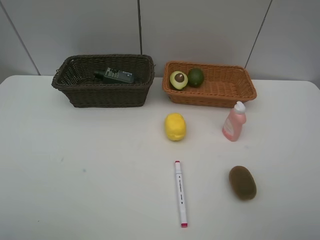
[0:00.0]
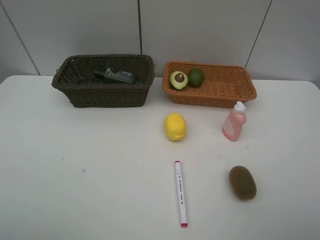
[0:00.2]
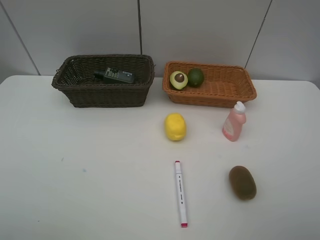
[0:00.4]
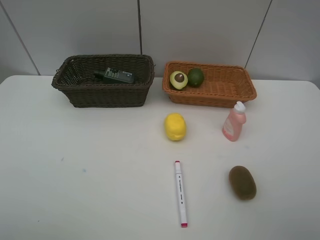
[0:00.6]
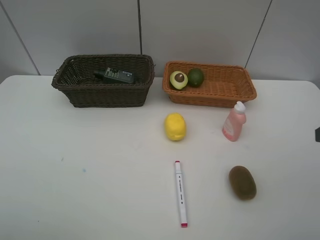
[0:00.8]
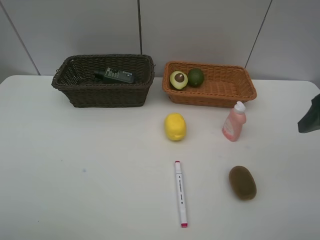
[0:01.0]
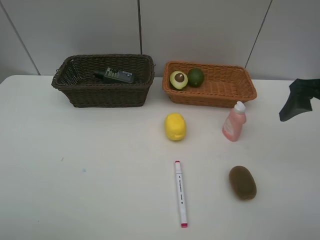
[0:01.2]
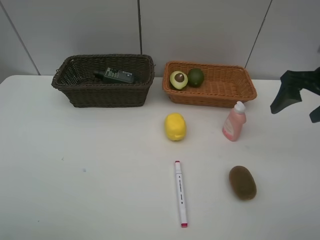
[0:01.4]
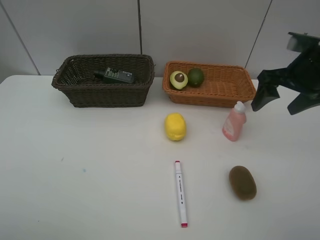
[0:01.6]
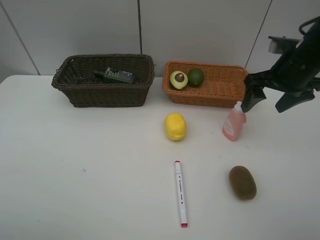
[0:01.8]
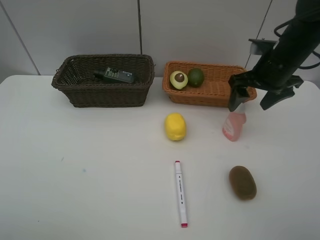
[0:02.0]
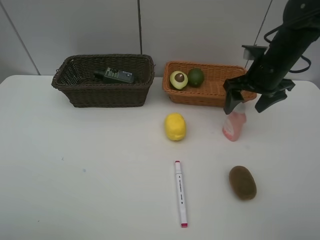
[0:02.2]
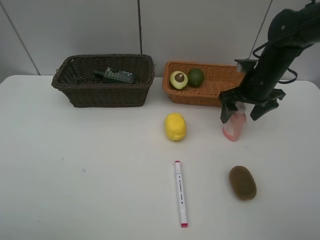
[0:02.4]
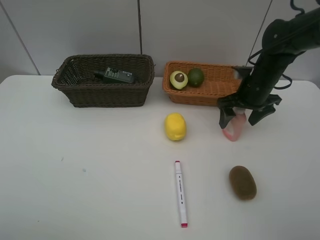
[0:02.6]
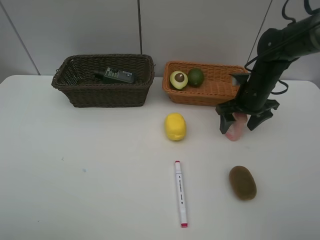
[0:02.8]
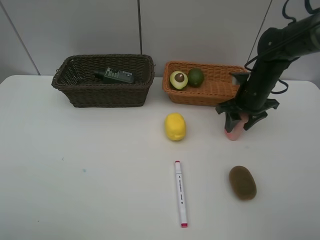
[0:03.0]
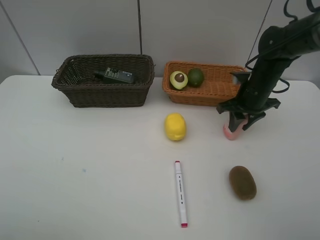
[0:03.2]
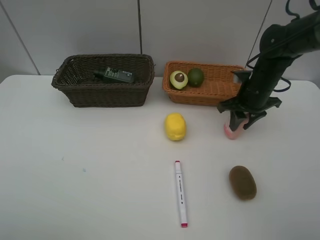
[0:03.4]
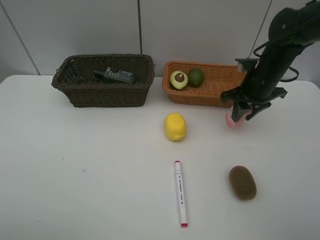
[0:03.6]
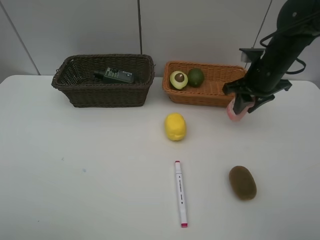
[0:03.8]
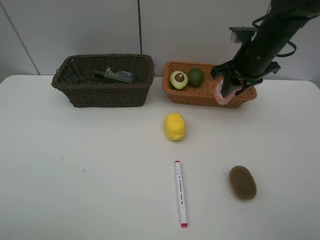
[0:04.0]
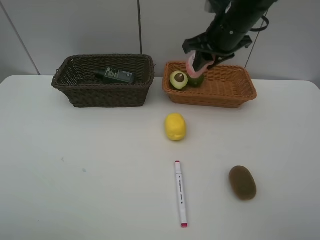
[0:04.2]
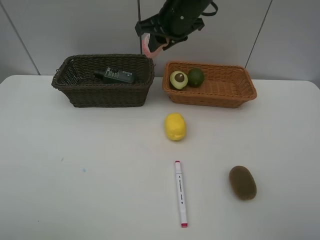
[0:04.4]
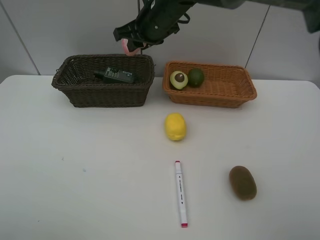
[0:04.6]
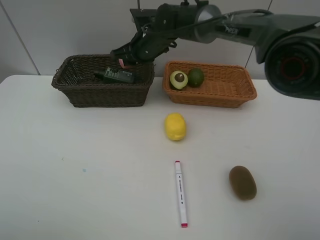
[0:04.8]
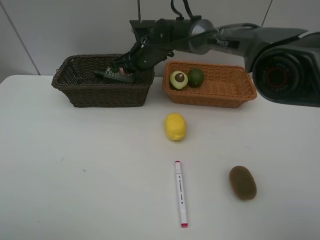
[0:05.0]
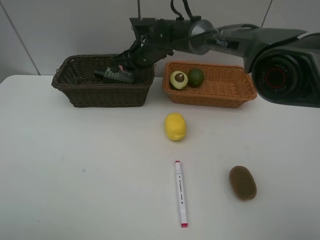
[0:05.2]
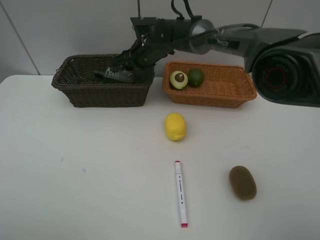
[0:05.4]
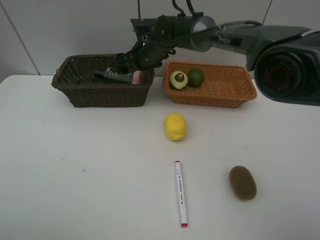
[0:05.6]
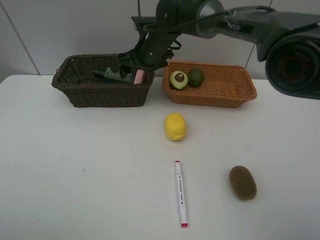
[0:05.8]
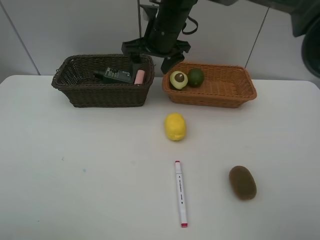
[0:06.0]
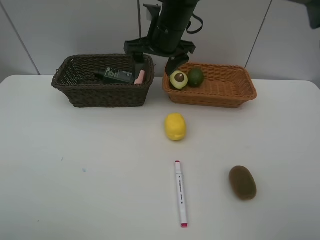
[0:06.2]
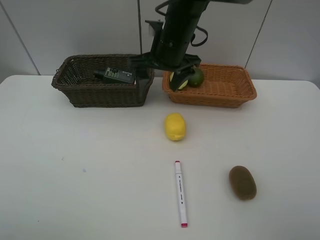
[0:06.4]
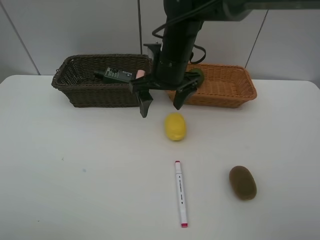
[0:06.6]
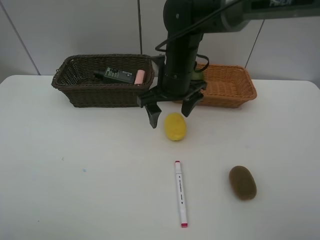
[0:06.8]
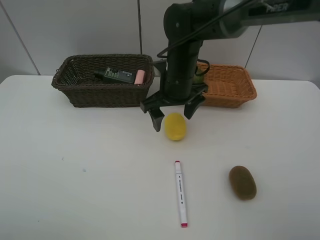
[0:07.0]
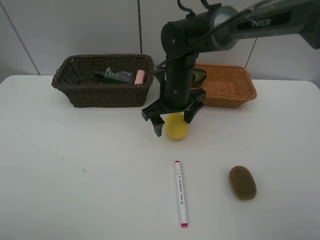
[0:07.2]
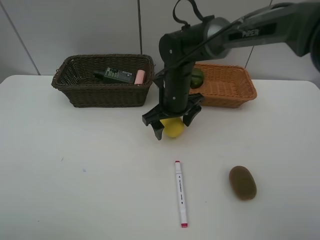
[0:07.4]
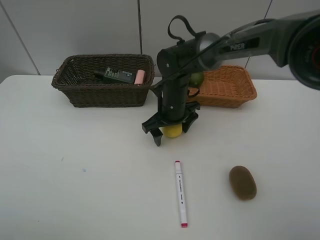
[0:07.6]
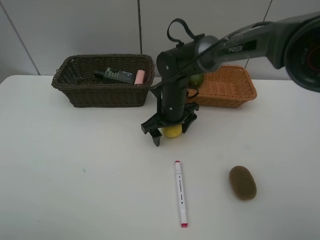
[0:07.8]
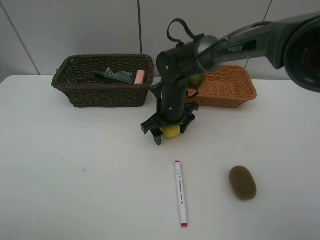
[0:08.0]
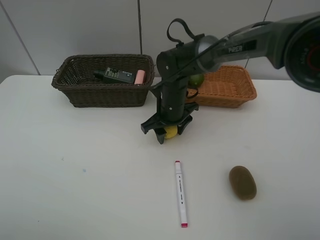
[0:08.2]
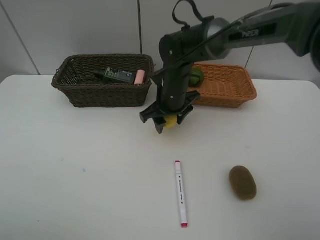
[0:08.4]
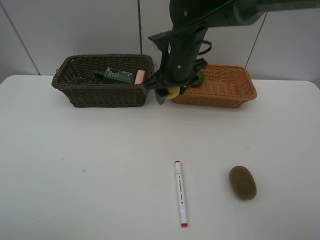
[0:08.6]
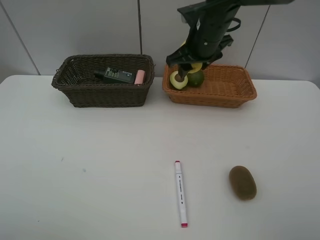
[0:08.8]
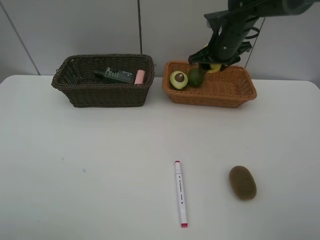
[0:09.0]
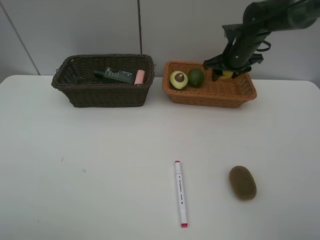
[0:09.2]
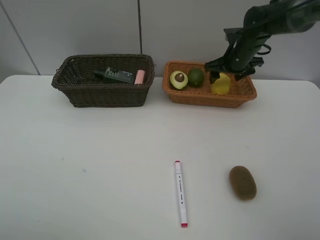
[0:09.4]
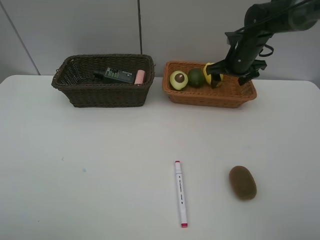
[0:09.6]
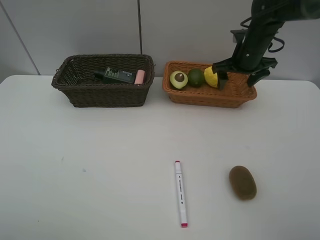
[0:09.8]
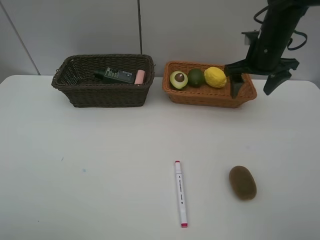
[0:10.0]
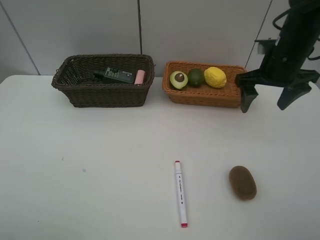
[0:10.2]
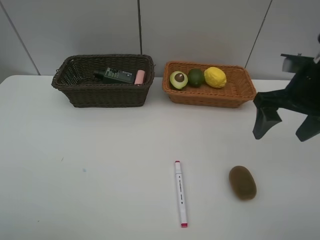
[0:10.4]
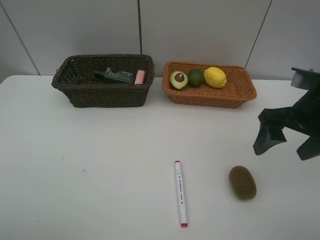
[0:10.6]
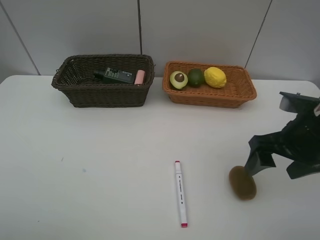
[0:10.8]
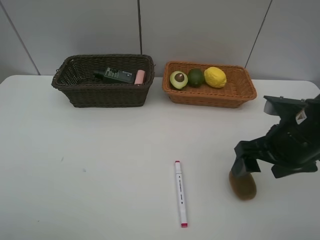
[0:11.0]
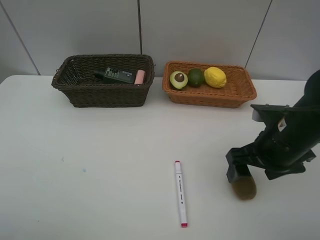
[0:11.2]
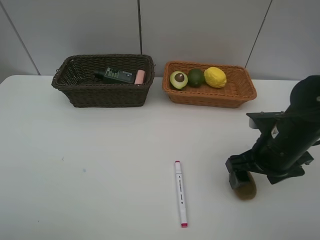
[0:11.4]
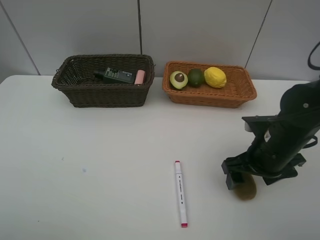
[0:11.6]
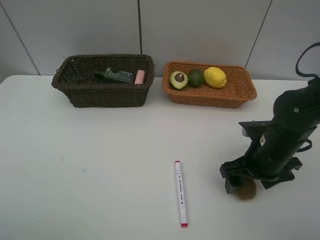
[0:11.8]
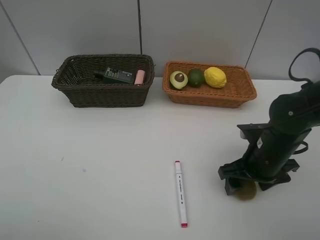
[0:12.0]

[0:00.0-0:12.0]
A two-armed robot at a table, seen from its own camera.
Task of the whole recording: Place multiple objects separately in different baskets.
Step, 0:00.0 to 0:03.4: Pick up the laundry detergent with right gripper.
Step, 0:03.6 to 0:05.8: Place the laundry detergent in the dark basket with right gripper.
Step, 0:06.0 to 0:08.4: Pick up the lemon with right gripper.
Step, 0:08.6 to 0:09.6: Place the lemon in the light basket with right gripper.
0:00.0 to 0:01.6: The right gripper is displaced forward by about 30 cm.
0:01.6 to 0:03.0: The right gripper moves downward and forward, roughly 15 cm, and closes its fingers.
0:03.0 to 0:04.4: The right gripper travels to the left and upward by approximately 25 cm.
0:04.4 to 0:06.0: The right gripper goes downward and returns, approximately 10 cm each way, and opens up.
0:06.0 to 0:07.6: The right gripper travels downward by approximately 15 cm.
0:07.6 to 0:09.0: The right gripper goes roughly 20 cm to the right, upward and forward, and closes.
0:09.0 to 0:10.4: The right gripper travels backward and to the right by roughly 20 cm, and opens.
0:10.4 to 0:12.0: The right gripper travels downward by some 15 cm.

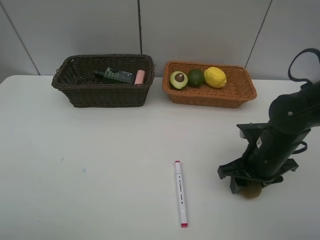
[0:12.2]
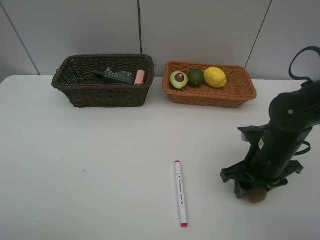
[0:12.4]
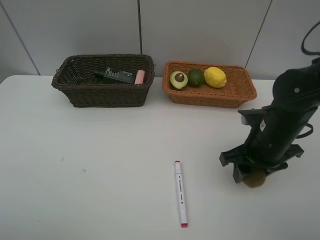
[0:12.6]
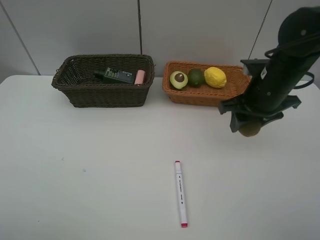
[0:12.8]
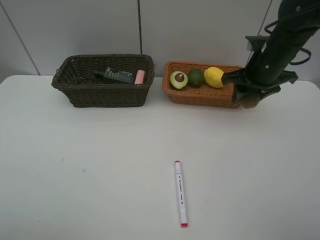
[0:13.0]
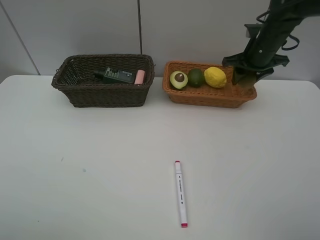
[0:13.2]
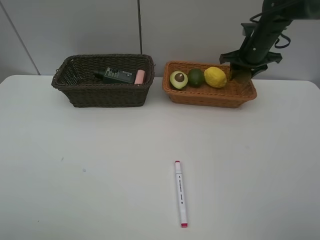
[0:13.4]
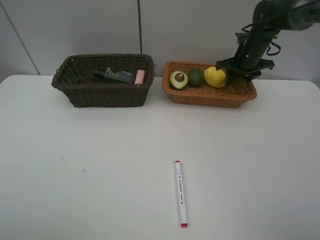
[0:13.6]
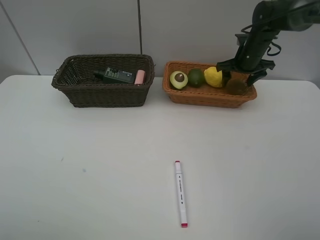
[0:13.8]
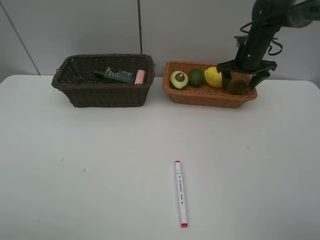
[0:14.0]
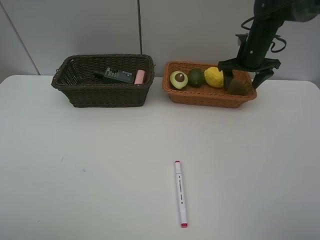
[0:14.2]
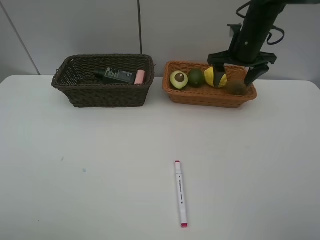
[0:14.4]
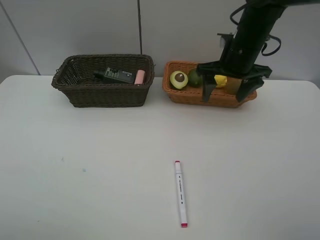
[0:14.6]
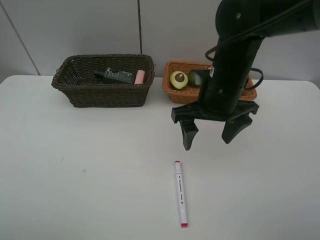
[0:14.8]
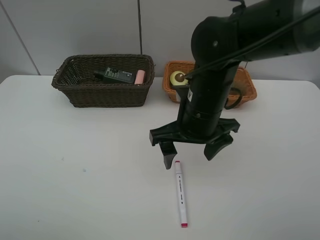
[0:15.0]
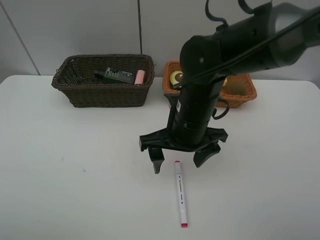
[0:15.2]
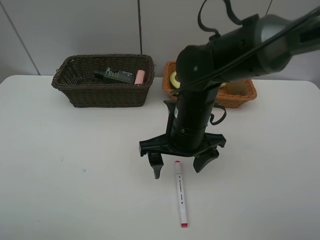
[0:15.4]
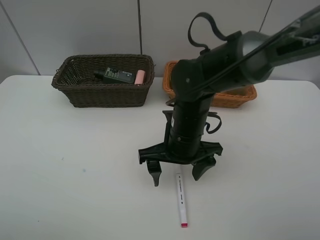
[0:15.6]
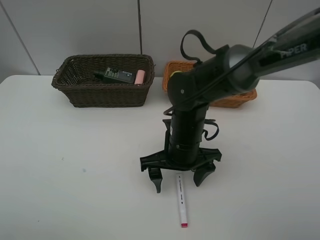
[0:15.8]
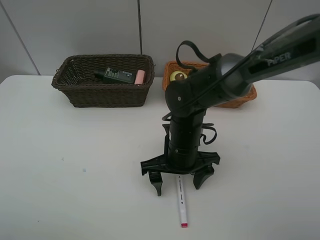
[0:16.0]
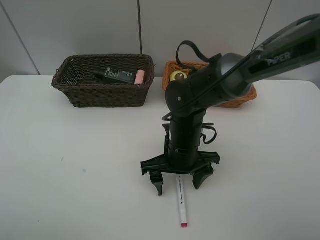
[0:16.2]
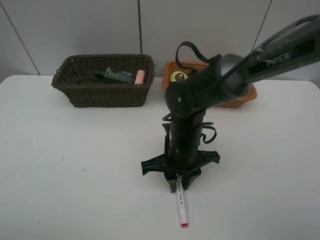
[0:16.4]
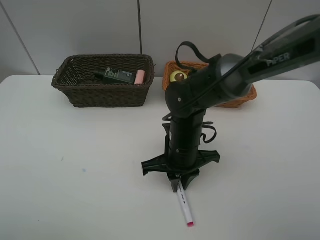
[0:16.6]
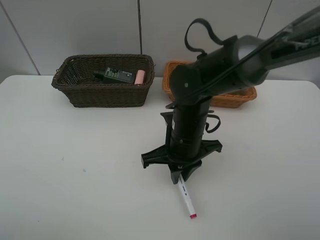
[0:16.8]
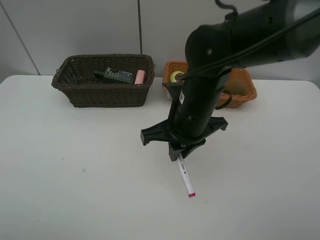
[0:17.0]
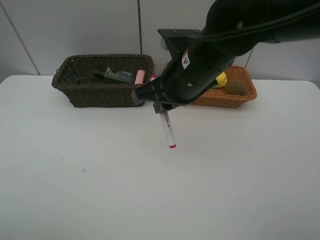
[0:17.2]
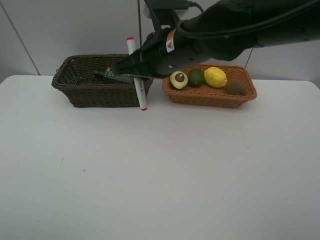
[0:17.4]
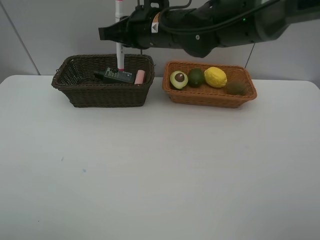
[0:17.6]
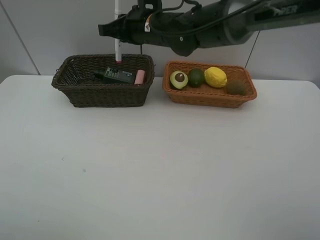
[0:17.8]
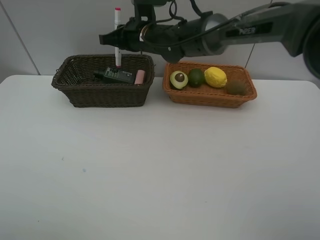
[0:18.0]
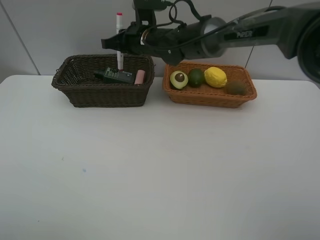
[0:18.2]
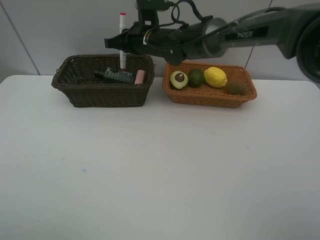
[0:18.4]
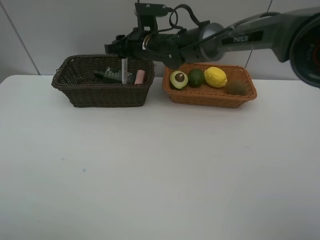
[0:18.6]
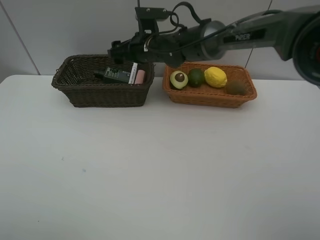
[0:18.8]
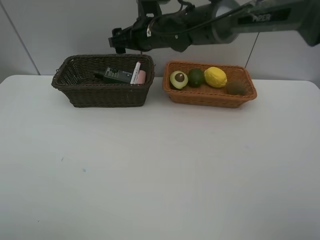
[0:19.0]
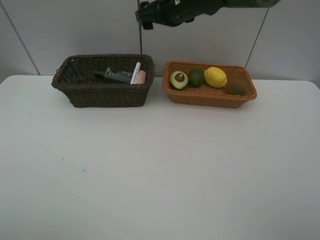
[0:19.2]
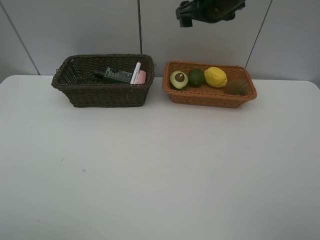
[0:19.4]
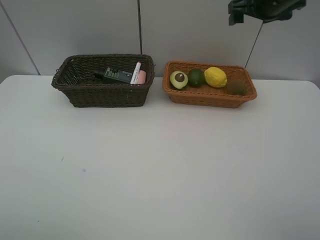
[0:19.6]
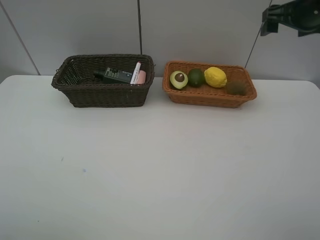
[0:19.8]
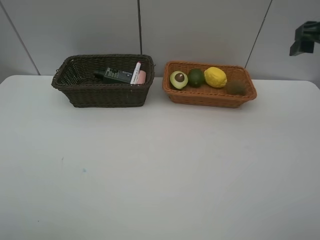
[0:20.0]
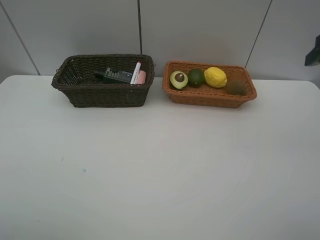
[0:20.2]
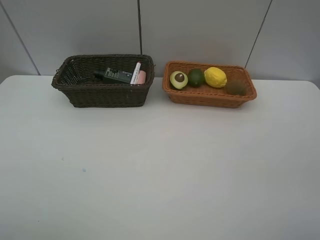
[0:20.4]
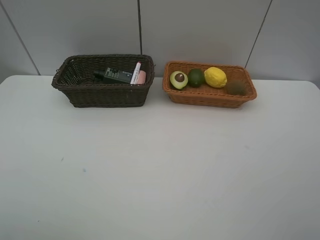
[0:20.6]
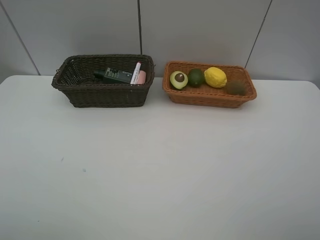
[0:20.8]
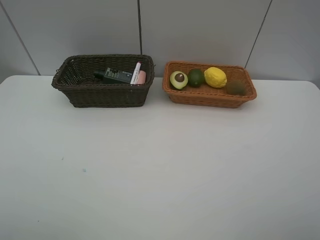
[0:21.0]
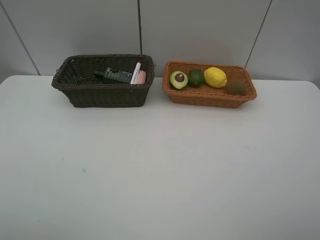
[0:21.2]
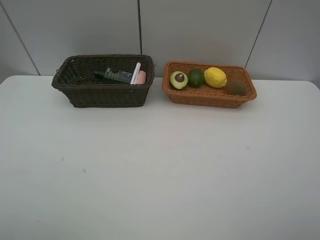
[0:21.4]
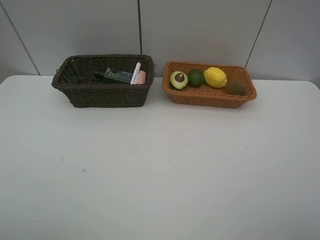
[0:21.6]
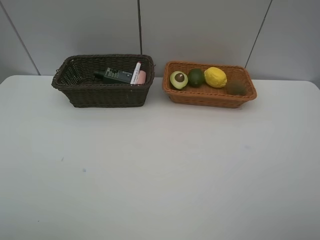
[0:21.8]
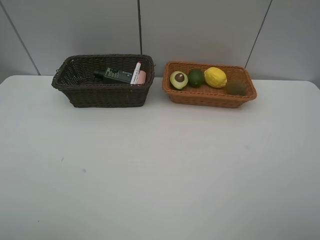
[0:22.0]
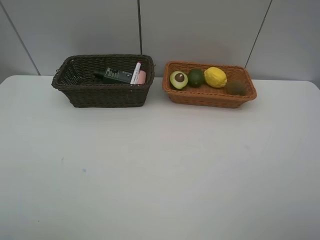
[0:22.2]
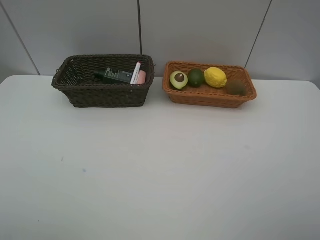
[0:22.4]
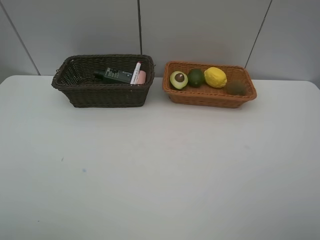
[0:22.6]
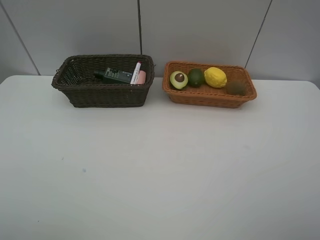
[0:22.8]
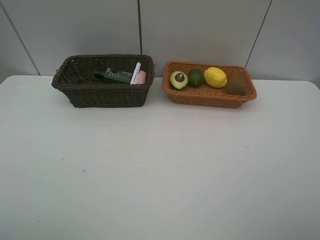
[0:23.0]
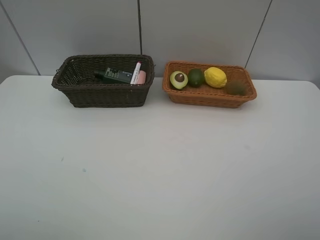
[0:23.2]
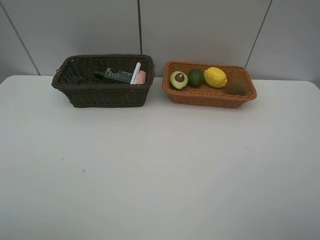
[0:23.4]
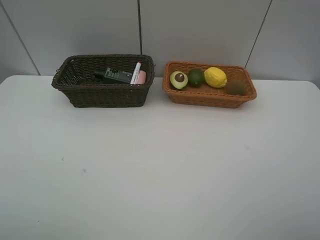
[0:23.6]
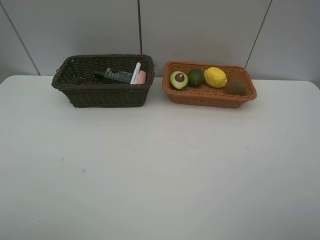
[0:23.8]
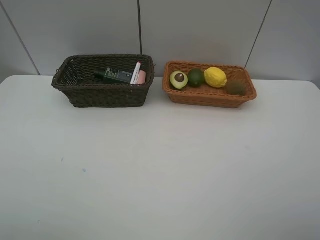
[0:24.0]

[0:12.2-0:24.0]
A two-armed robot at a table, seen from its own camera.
Task of the whole recording: Place multiple objects separately in different baskets.
Step, 0:12.8 to 0:14.2: Place the kiwi in the light basket with right gripper.
Step, 0:14.4 to 0:16.6: Pick up the red marker with right gripper.
Step, 0:16.8 to 0:18.8: Place the red marker in the dark basket with right gripper.
0:12.2 to 0:13.6: The right gripper is displaced forward by some 30 cm.
0:13.6 to 0:15.2: The right gripper travels backward and to the left by approximately 30 cm, and opens up.
0:15.2 to 0:16.6: The right gripper heads downward, covering roughly 5 cm, and closes.
0:16.6 to 0:18.2: The right gripper moves forward, upward and to the left, about 25 cm.
0:18.2 to 0:19.6: The right gripper is displaced to the right and upward by some 30 cm, and opens.
0:19.6 to 0:21.0: The right gripper moves backward, roughly 40 cm.
0:22.6 to 0:24.0: Both grippers stay put.
